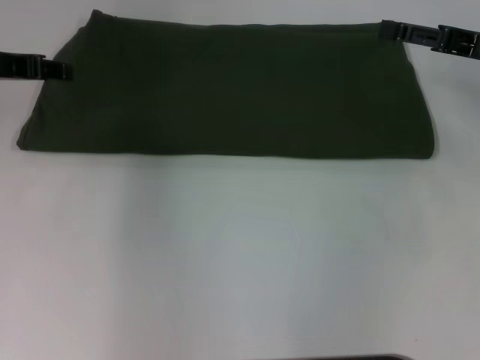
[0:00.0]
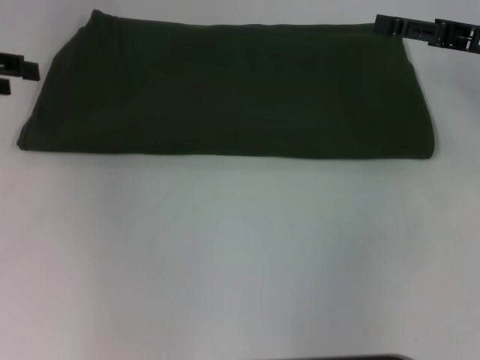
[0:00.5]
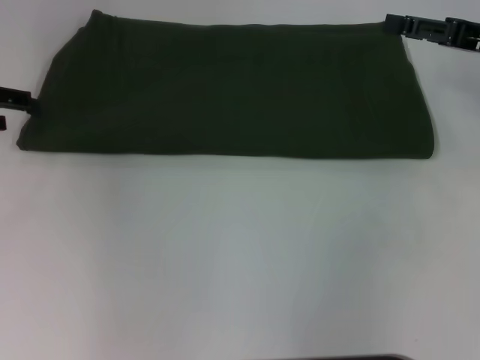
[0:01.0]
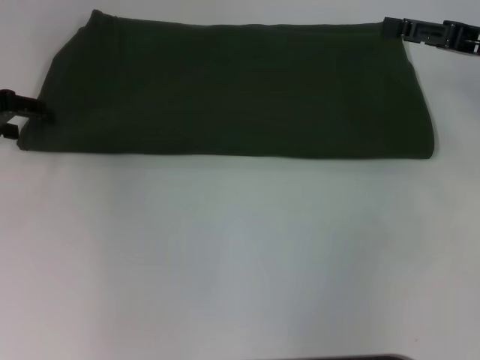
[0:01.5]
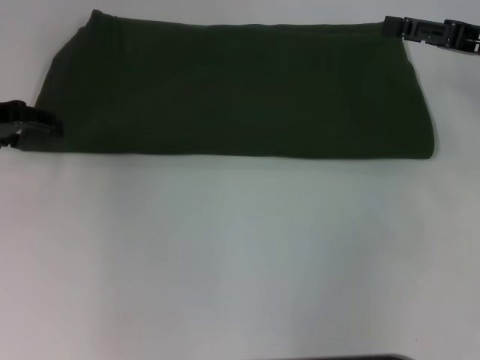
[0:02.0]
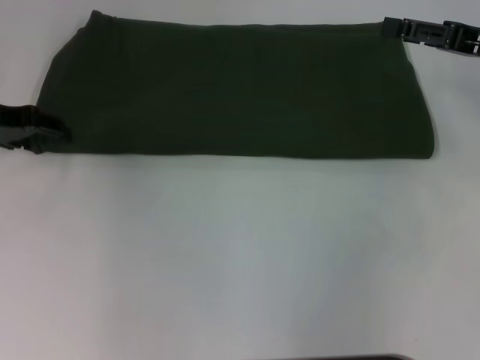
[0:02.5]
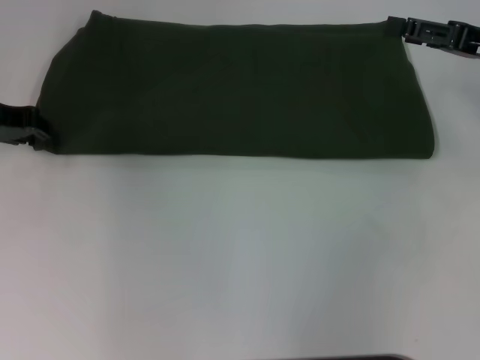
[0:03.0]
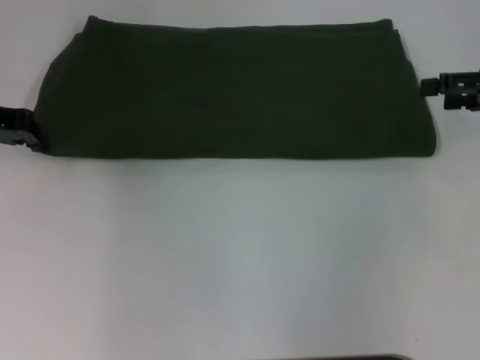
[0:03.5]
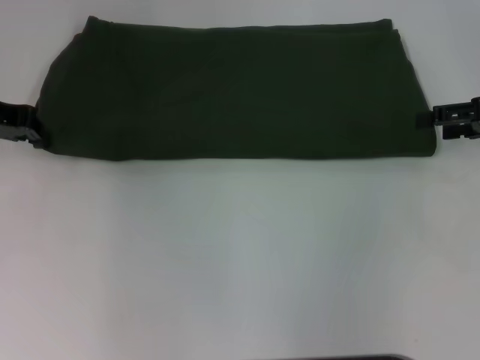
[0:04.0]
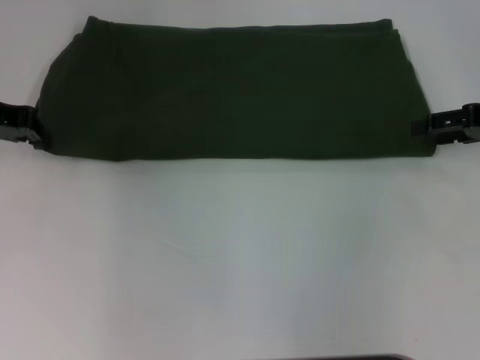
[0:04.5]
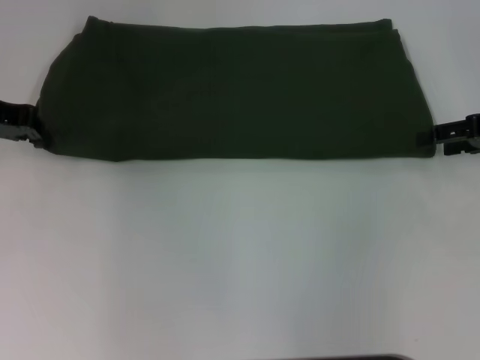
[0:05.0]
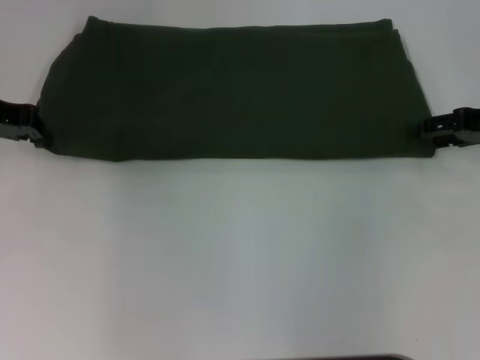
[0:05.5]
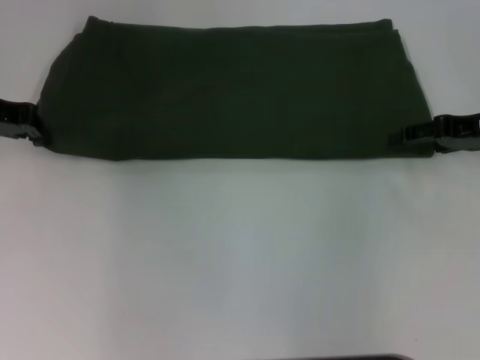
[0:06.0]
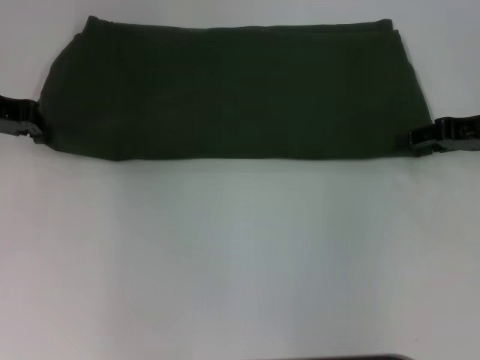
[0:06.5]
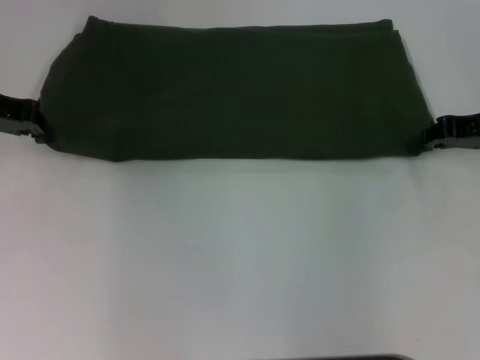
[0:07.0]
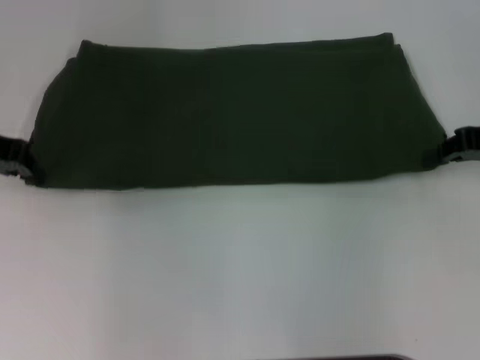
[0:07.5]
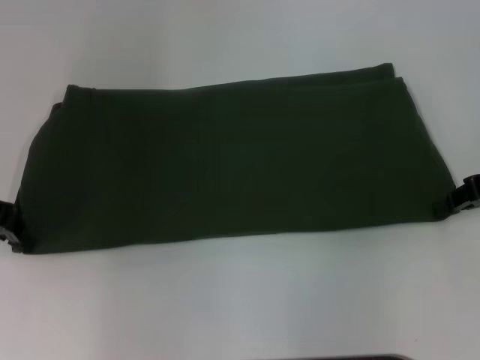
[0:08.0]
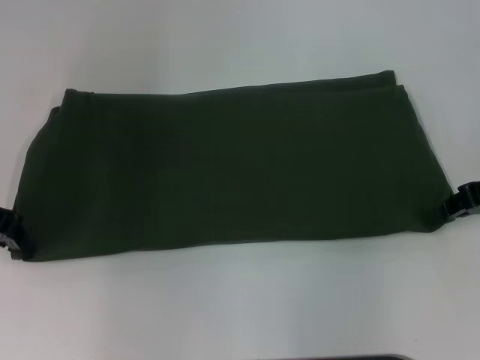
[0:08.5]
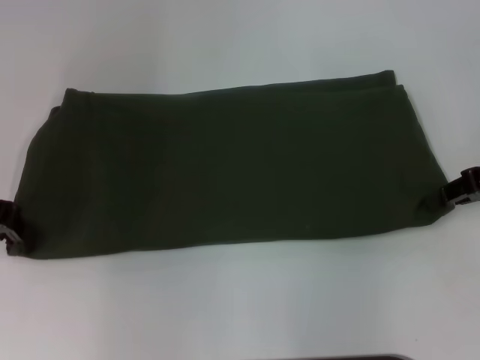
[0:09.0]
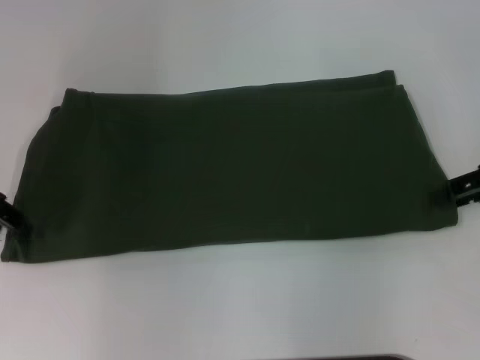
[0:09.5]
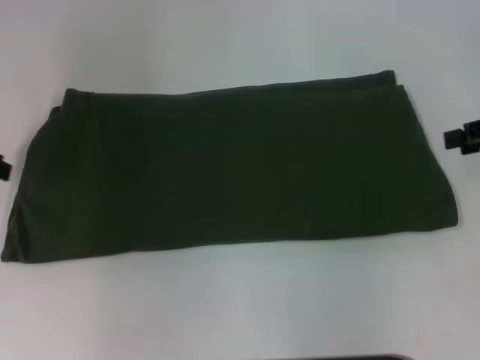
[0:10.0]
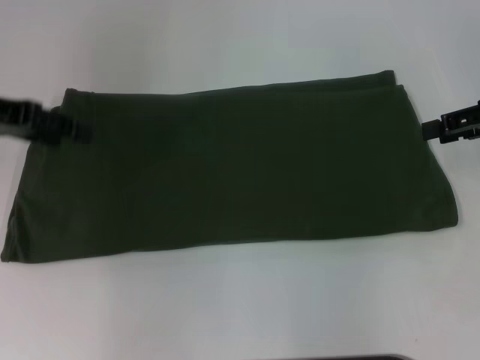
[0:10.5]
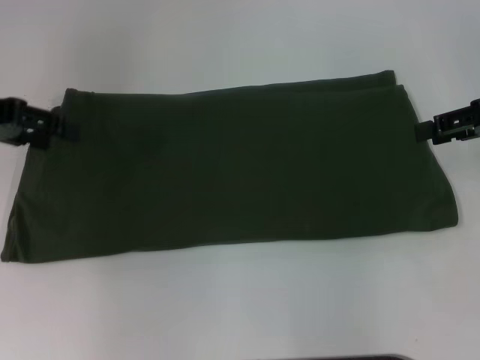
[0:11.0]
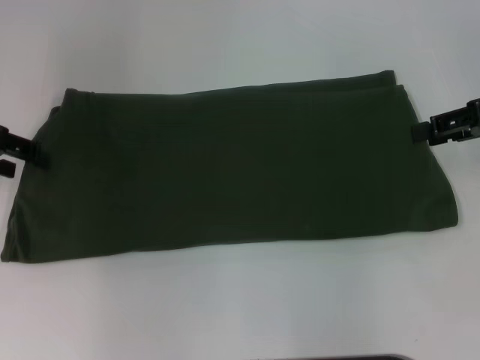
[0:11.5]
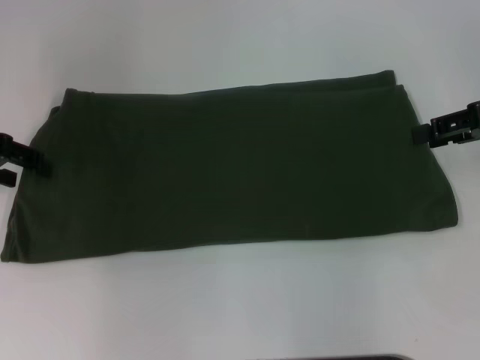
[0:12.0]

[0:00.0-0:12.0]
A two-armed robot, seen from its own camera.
0:00.0 to 0:02.0: The left gripper ends up roughly 5 cm from where it was, and opens up.
0:02.0 to 0:04.0: The left gripper closes up.
0:04.0 to 0:06.0: There are only small adjustments of the grippers.
0:06.0 to 0:08.0: The right gripper closes; the left gripper goes about 5 cm backward.
0:08.0 to 0:10.0: The left gripper shifts by approximately 5 cm, and opens its fingers. Meanwhile the right gripper moves roughly 5 cm, and opens its fingers.

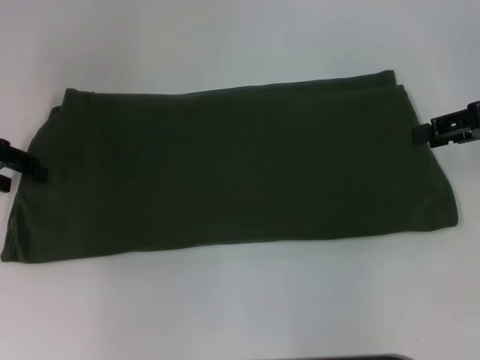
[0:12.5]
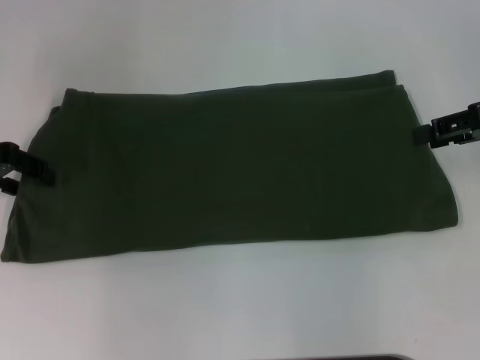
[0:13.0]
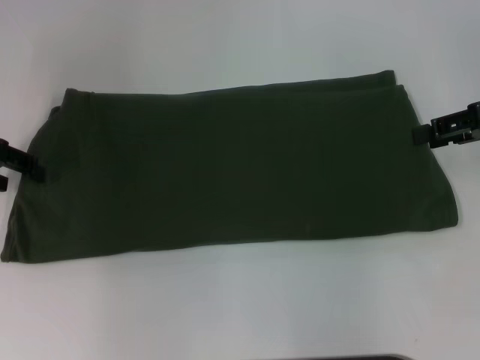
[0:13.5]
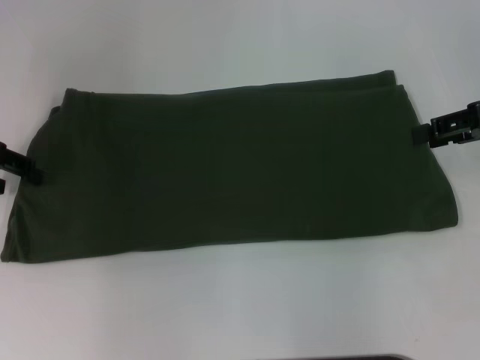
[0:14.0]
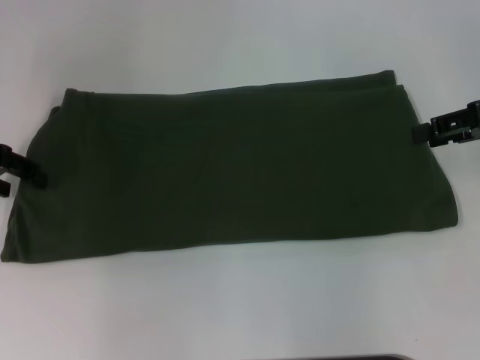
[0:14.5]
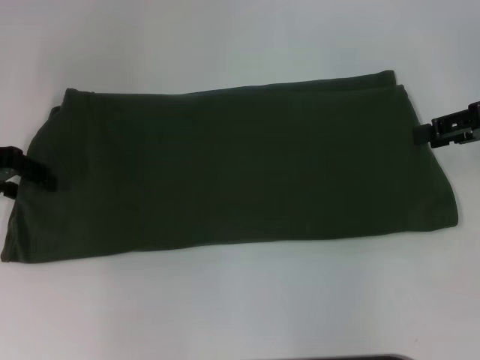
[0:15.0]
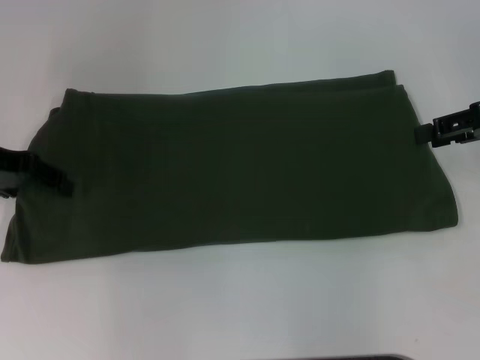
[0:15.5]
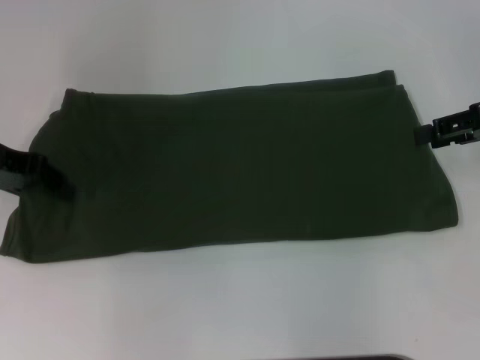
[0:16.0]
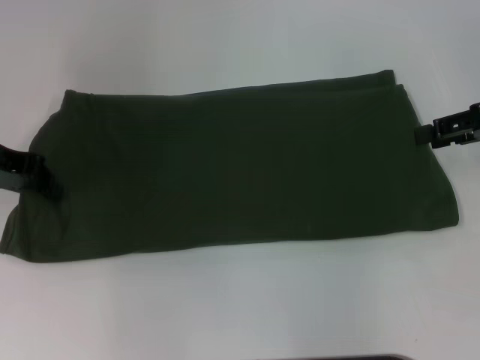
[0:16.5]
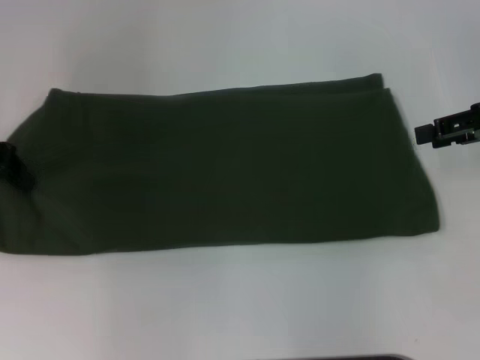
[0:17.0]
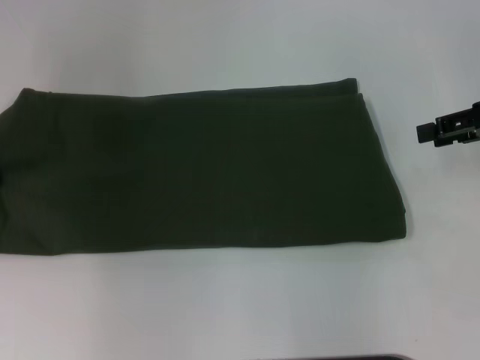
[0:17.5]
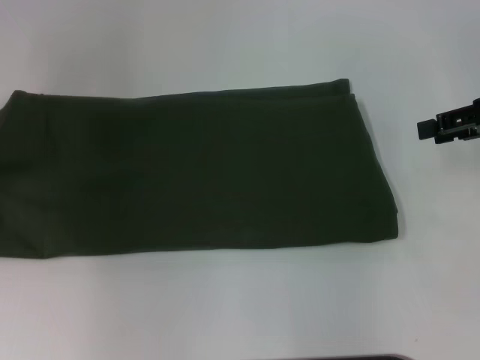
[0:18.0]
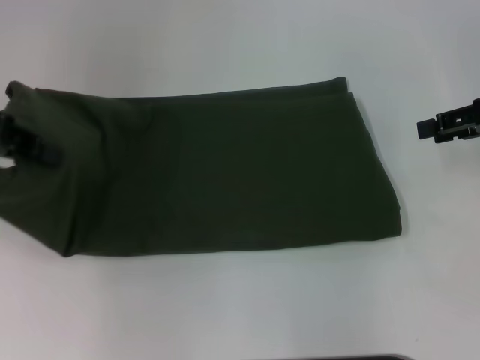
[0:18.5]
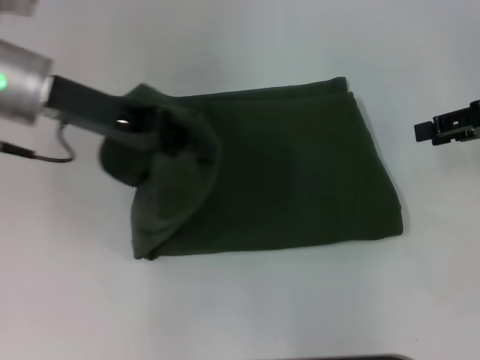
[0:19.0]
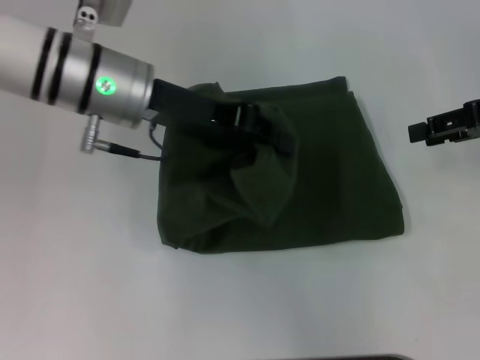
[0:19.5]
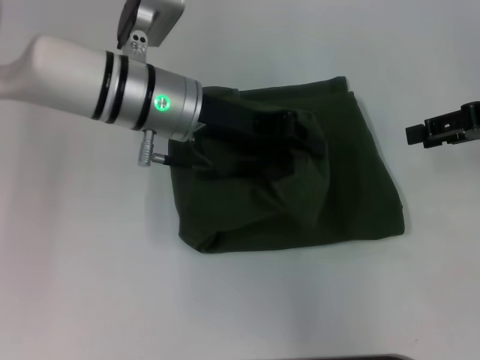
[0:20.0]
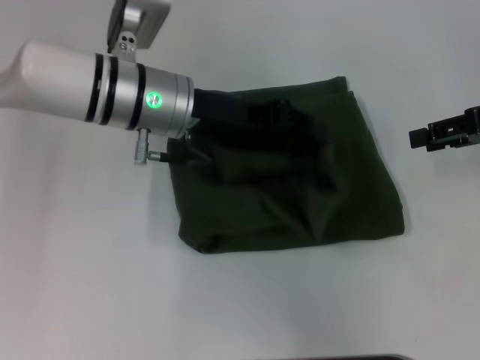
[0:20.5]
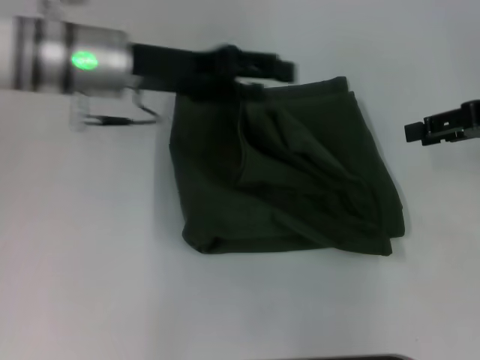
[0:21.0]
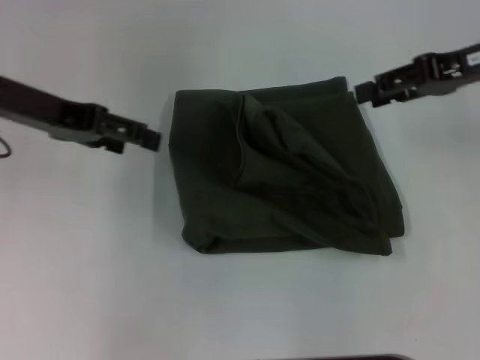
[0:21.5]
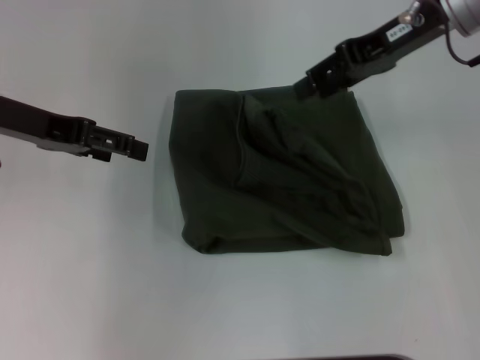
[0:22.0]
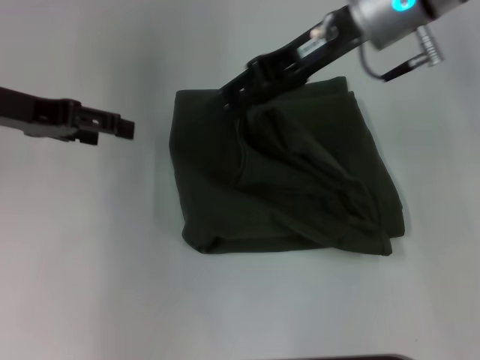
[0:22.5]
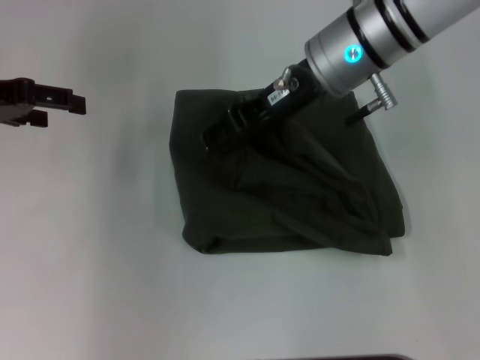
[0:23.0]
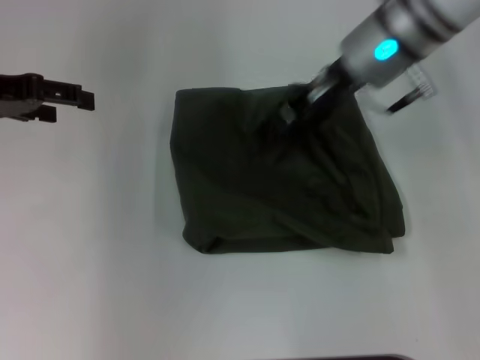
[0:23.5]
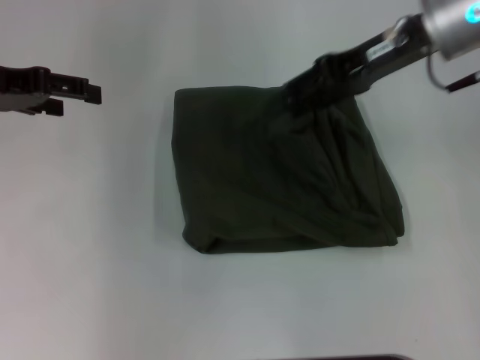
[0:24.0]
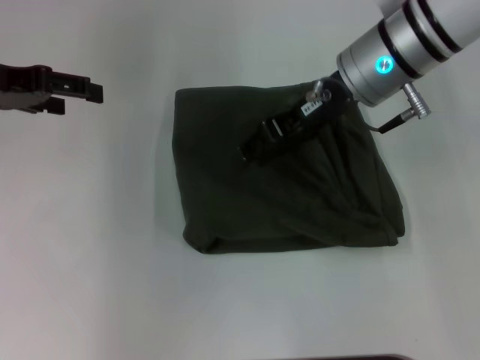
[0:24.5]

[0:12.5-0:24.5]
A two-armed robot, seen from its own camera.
Step, 0:12.5 to 0:20.5: Fold the clothes with your left hand.
0:12.5 to 0:14.5: The two grippers keep their place.
0:14.5 to 0:16.5: The left gripper closes its fingers.
0:16.5 to 0:18.5: The left gripper travels upward by approximately 5 cm.
0:18.5 to 0:20.5: The left gripper heads to the right, covering some 20 cm.
0:20.5 to 0:22.5: Both grippers travel together to the left, about 20 cm. The left gripper opens its fingers.
0:22.5 to 0:24.5: The right gripper goes to the right and returns, approximately 5 cm each way.

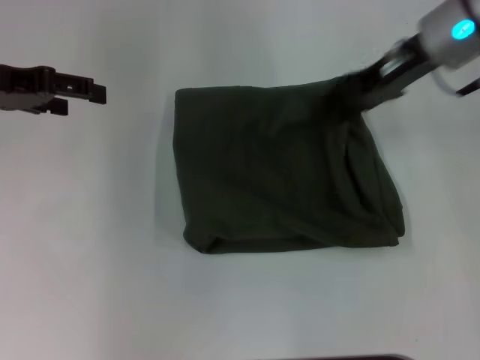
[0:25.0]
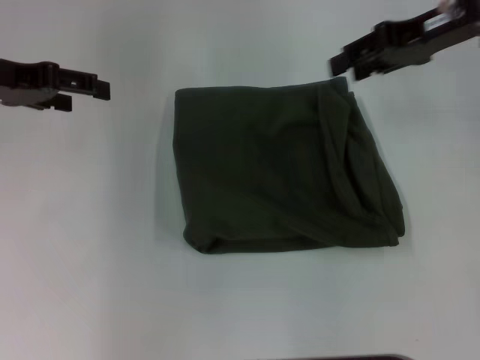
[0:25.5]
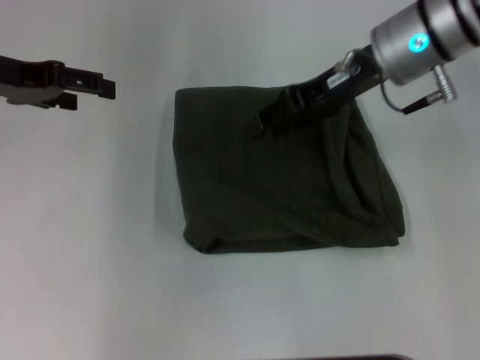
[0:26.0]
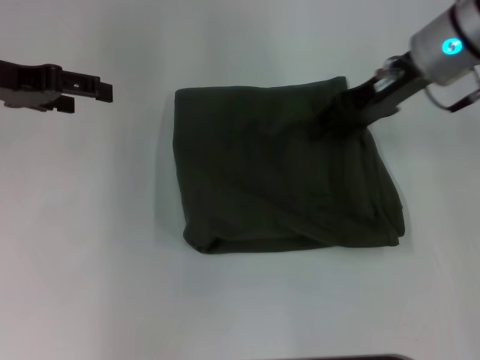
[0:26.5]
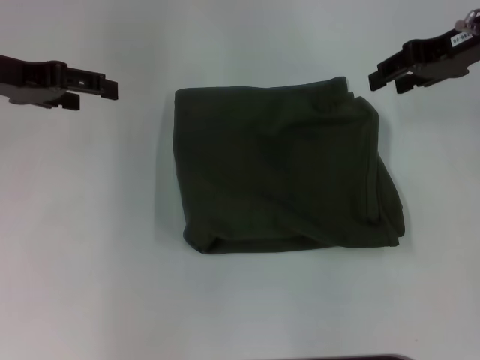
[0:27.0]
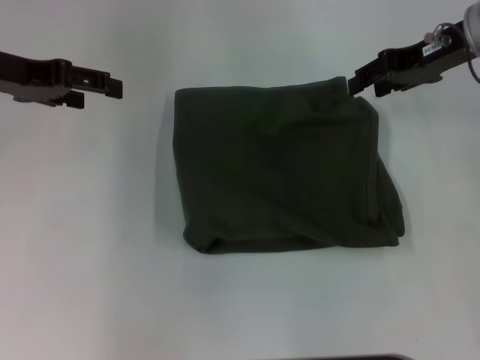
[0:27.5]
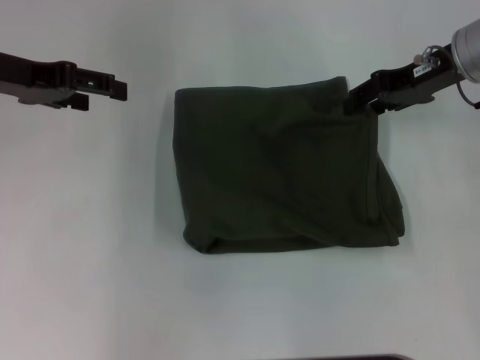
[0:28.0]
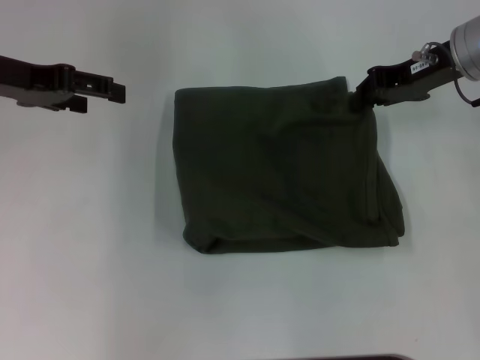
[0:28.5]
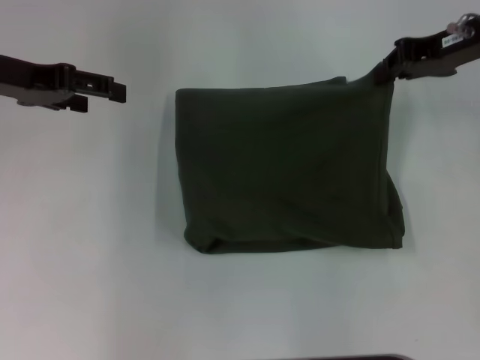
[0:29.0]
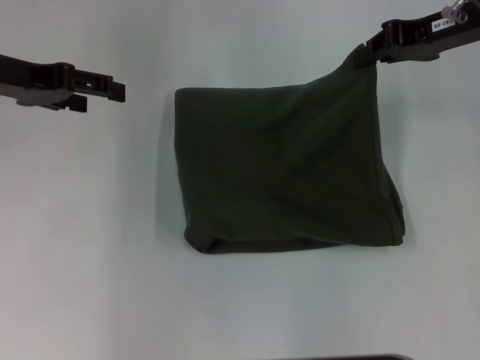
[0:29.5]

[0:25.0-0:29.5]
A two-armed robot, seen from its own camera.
0:25.0 to 0:27.0: The right gripper moves left and right over some 10 cm, changing direction 2 times.
0:27.0 to 0:29.5: The right gripper closes up.
